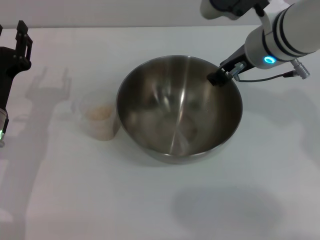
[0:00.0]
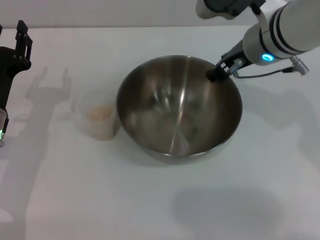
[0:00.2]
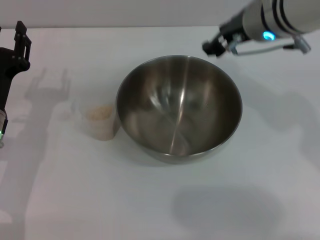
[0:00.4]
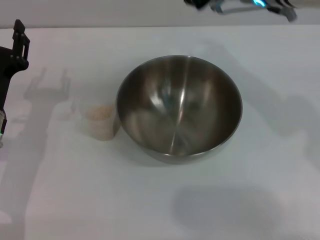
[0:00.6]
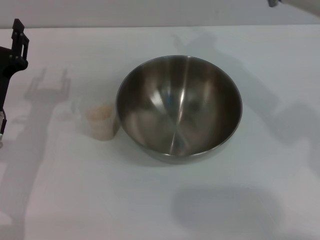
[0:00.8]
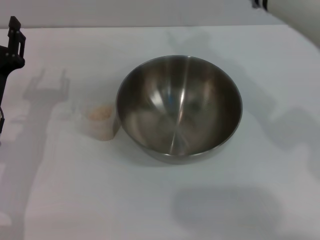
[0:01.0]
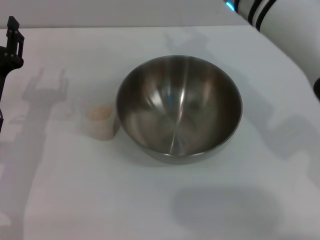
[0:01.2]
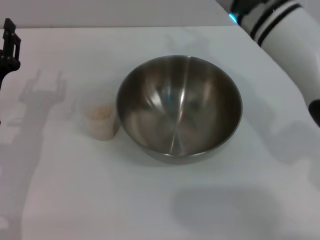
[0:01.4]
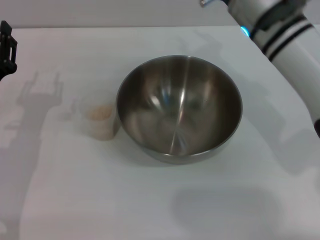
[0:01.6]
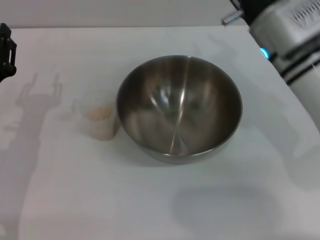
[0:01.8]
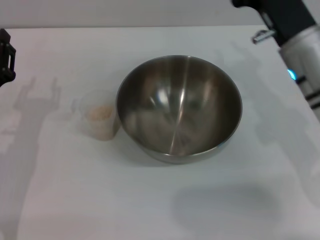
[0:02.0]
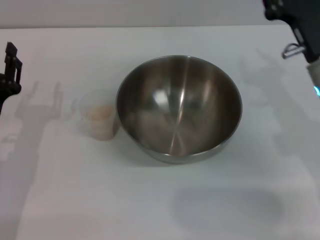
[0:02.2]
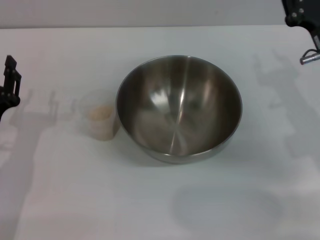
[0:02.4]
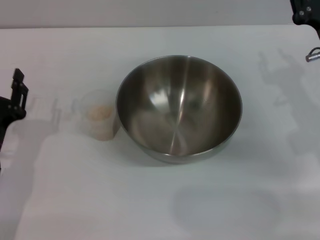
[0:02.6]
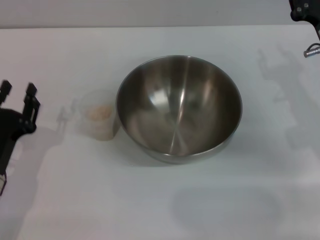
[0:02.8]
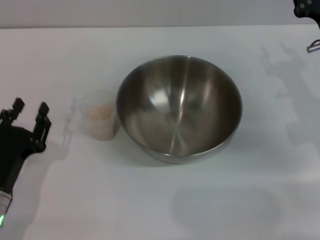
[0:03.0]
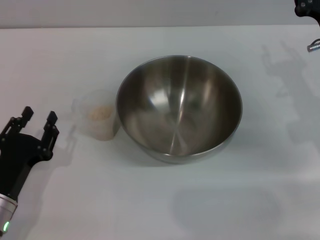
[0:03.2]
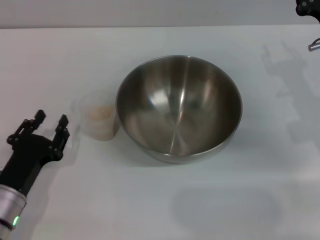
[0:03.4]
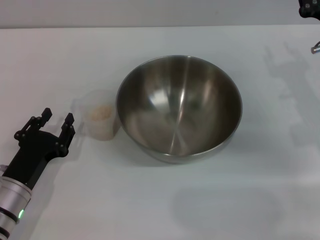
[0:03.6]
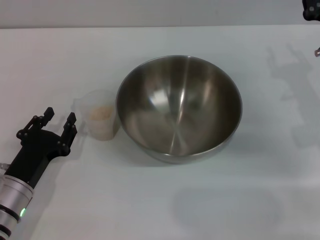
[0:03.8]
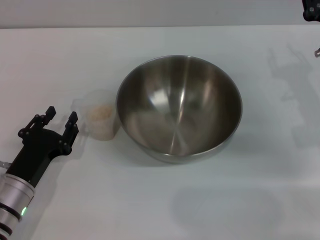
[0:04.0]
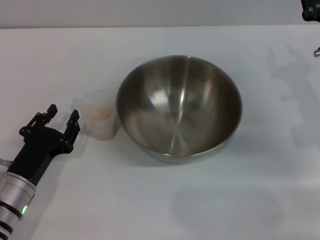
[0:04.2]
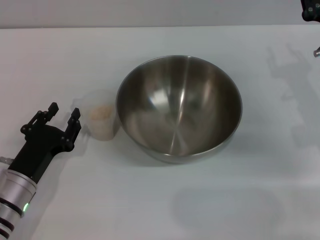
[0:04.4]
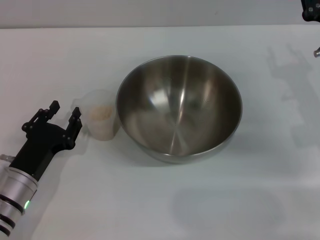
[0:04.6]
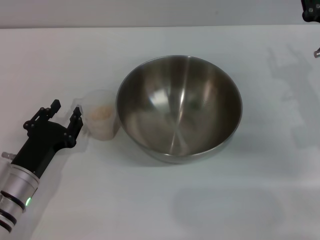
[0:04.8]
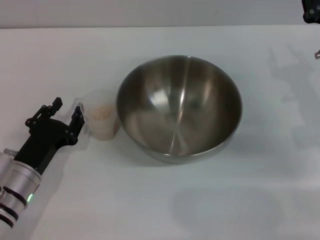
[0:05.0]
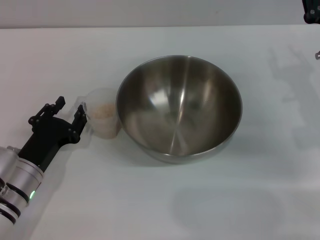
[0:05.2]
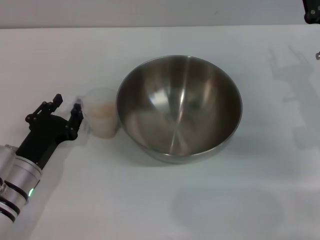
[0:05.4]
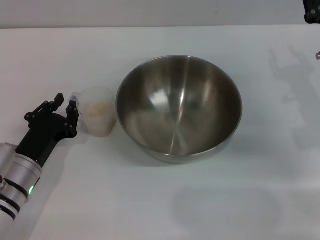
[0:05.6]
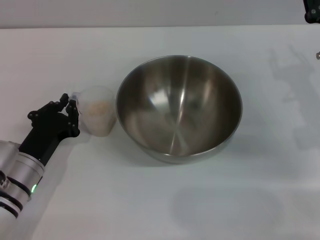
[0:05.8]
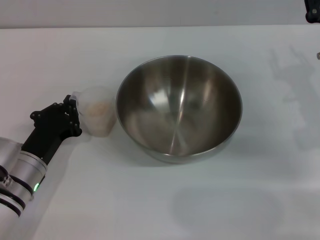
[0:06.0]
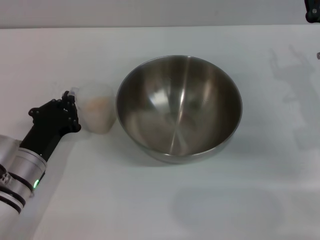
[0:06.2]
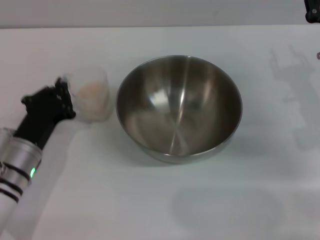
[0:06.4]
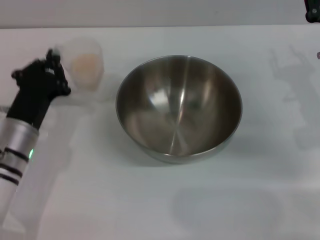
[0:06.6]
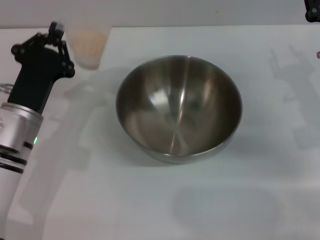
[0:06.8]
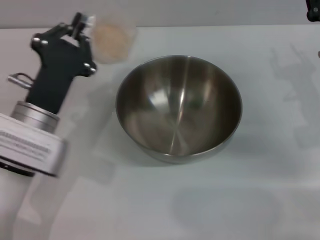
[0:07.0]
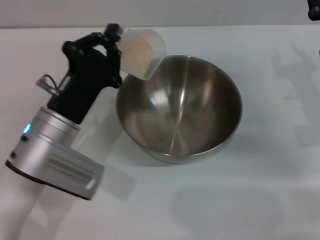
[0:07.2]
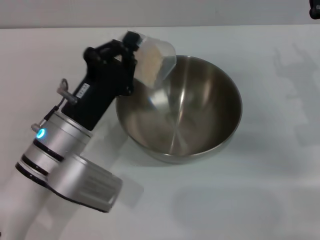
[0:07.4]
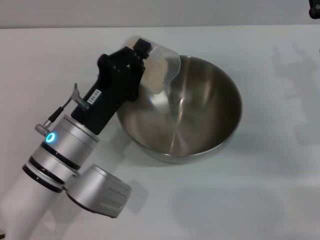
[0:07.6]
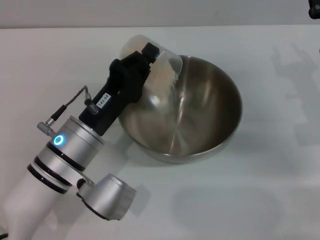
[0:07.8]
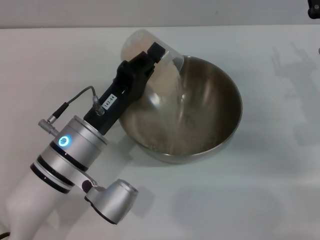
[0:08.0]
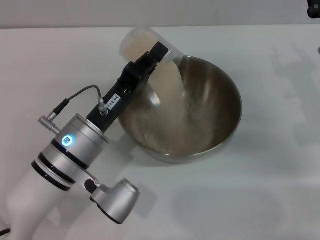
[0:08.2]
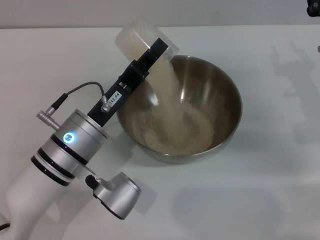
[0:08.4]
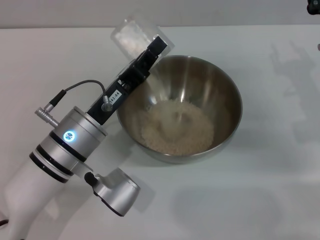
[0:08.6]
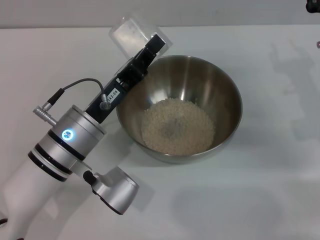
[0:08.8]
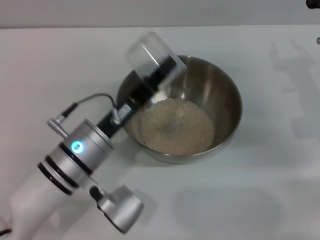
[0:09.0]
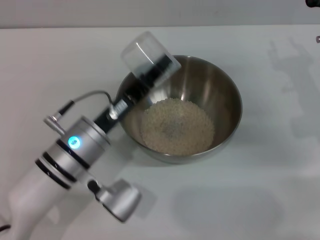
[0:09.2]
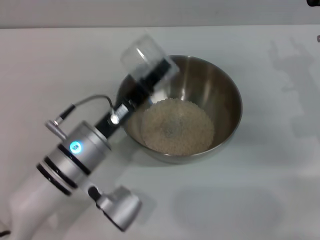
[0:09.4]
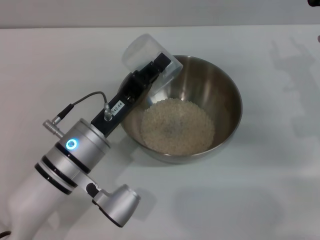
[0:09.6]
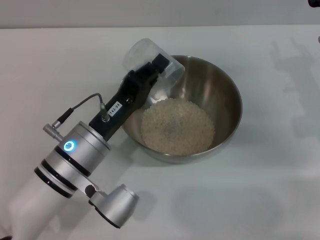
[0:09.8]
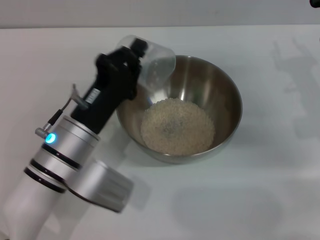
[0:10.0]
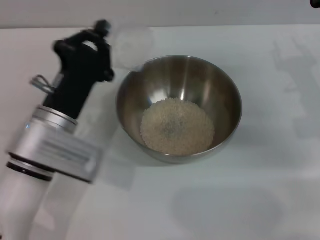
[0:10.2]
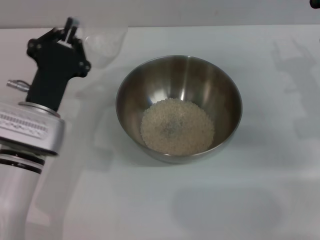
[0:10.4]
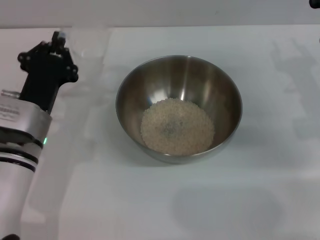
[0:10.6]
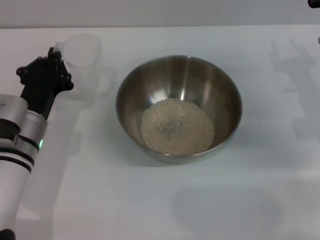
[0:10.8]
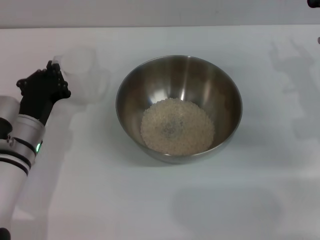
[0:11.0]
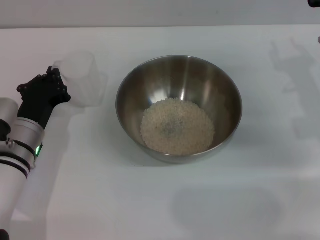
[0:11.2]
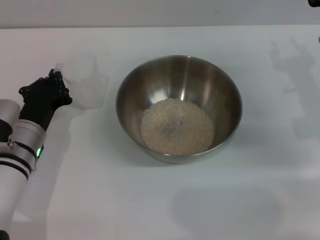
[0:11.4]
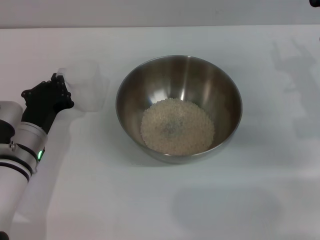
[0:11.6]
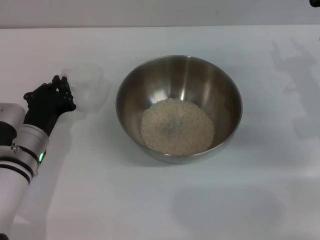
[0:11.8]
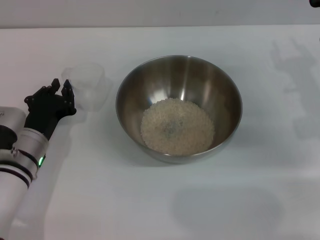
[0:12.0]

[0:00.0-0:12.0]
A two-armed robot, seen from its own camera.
Task of the whole recording: Place the bowl in the middle of the table with one hand and pour the rice from the grain cup into it with the other hand.
Step, 0:00.6 to 0:06.6: Pick up the cup with rice in it with the left gripper.
Step, 0:06.8 to 0:10.0: Pour the rice from the cup into the bowl with the left gripper.
0:00.0 to 0:01.6: The right gripper opens up.
0:01.6 to 0:03.0: The left gripper shifts some 10 cm backward. Meanwhile the right gripper shifts about 15 cm to the right and downward.
0:03.0 to 0:04.4: The grippers move only a little.
0:04.4 to 0:06.0: The left gripper closes.
0:06.0 to 0:07.6: The left gripper heads to the right and upward, covering roughly 10 cm.
0:10.4 to 0:12.0: The left gripper heads downward, covering some 5 cm.

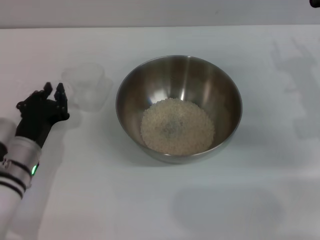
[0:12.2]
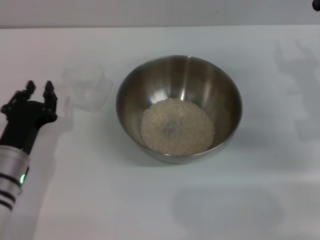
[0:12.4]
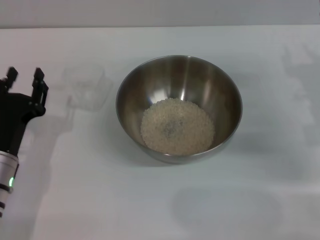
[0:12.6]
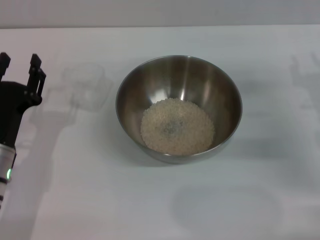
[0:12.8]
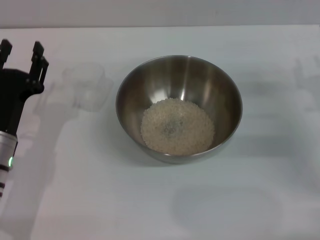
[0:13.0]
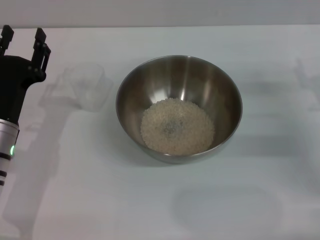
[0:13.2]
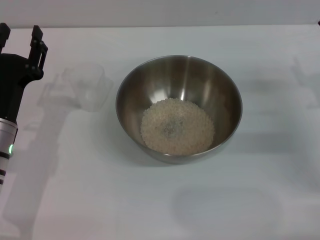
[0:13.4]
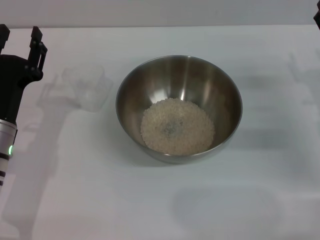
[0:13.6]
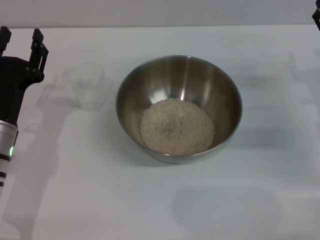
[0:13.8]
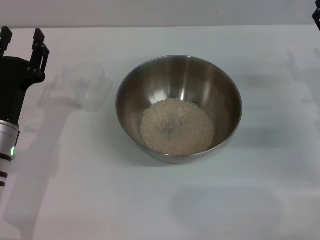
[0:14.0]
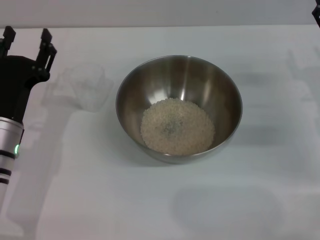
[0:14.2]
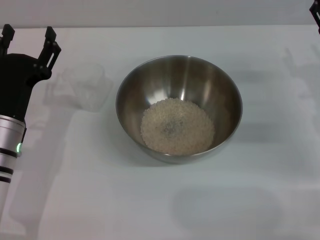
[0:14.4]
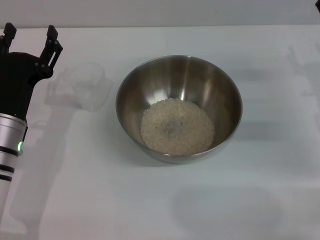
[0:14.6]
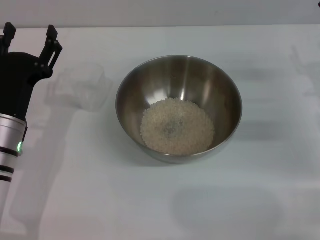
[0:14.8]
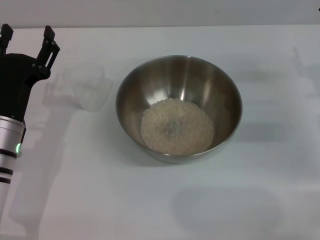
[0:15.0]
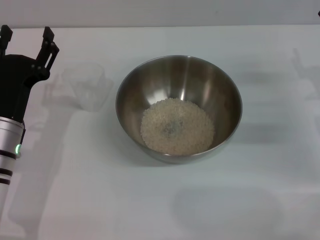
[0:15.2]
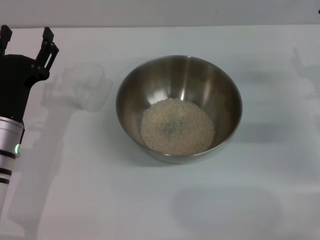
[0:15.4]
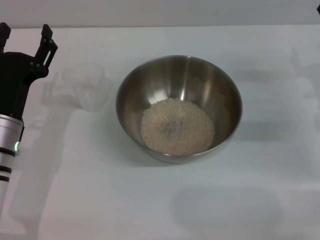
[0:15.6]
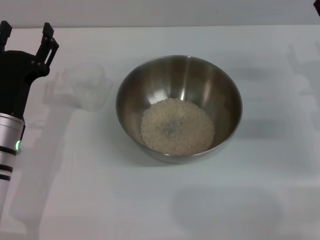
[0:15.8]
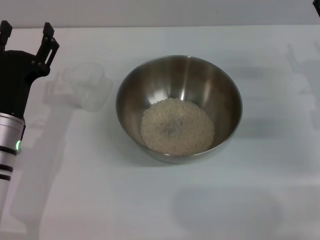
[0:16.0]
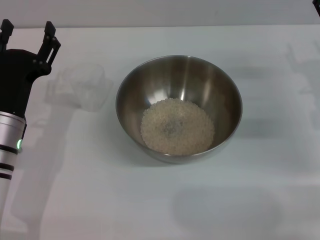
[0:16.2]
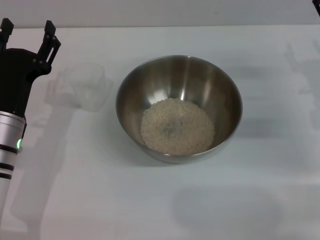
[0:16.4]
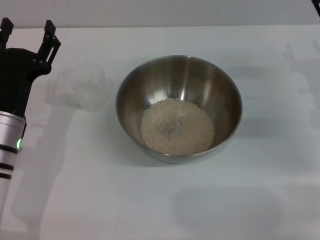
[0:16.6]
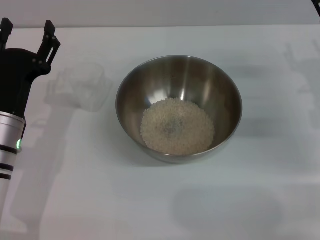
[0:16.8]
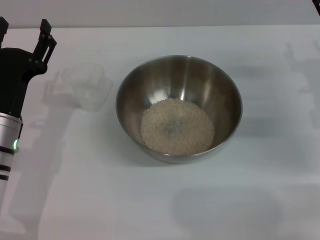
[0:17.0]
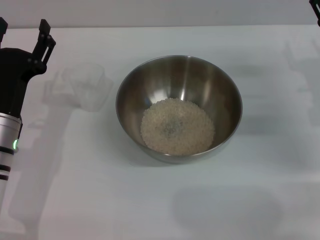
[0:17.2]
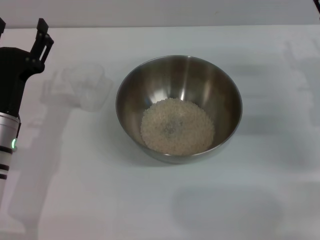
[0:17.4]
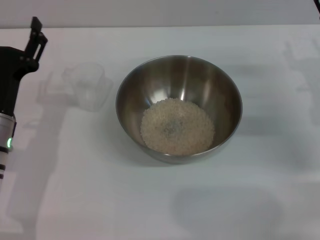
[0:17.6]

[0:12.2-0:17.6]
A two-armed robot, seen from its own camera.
Task of the whole recording: Place the bowl in the middle of the table with one hand and pour the rice from the grain cup into it with the other hand.
0:12.2 to 0:13.6: The right gripper ends up approximately 5 cm from where it was, while the left gripper opens up.
0:13.6 to 0:16.2: There are only small adjustments of the grippers.
0:16.2 to 0:17.6: Both grippers stay put.
